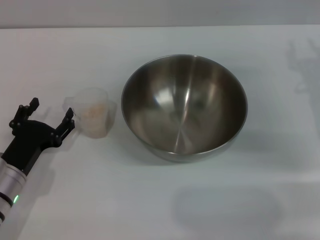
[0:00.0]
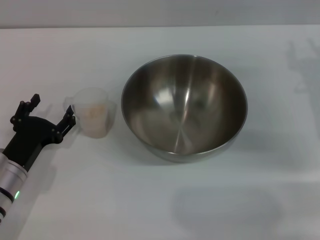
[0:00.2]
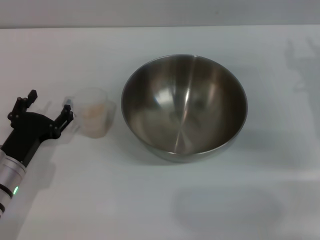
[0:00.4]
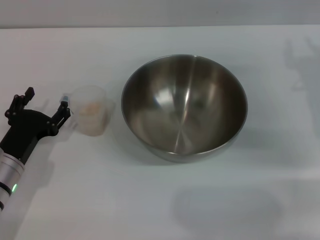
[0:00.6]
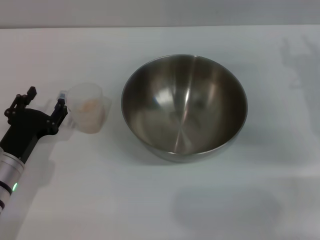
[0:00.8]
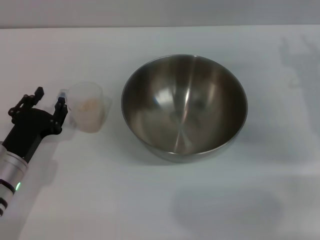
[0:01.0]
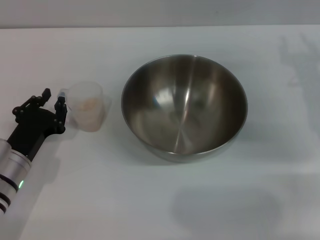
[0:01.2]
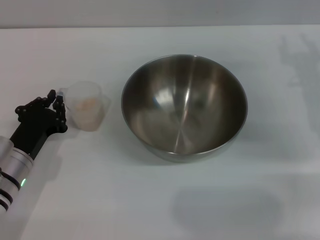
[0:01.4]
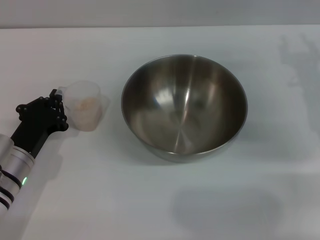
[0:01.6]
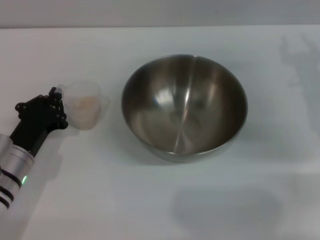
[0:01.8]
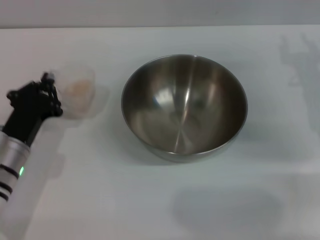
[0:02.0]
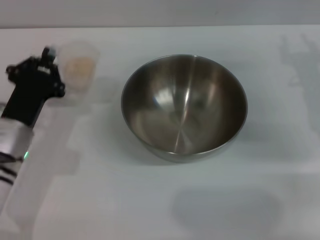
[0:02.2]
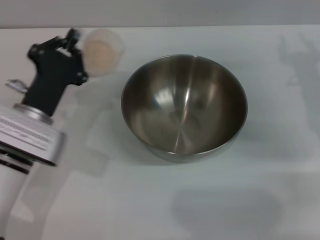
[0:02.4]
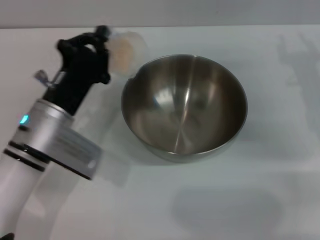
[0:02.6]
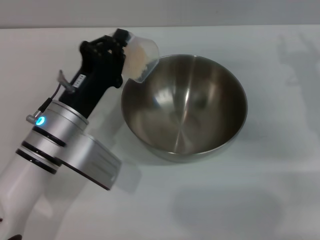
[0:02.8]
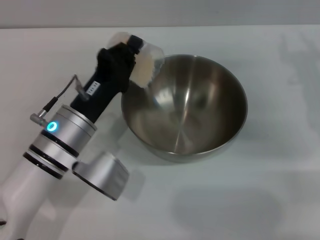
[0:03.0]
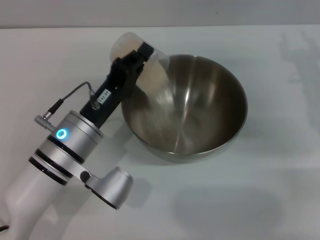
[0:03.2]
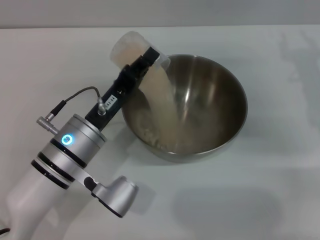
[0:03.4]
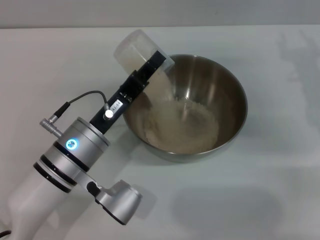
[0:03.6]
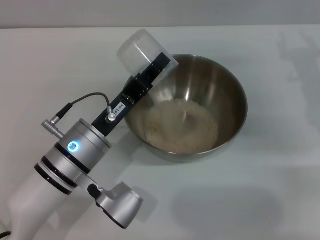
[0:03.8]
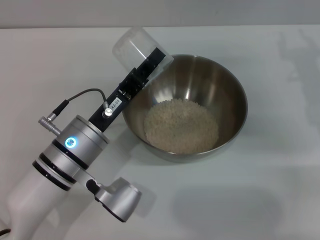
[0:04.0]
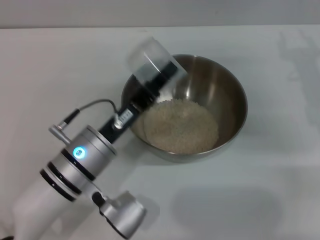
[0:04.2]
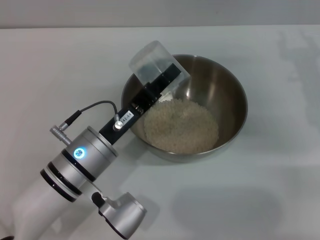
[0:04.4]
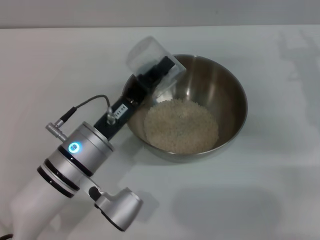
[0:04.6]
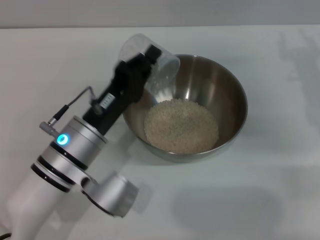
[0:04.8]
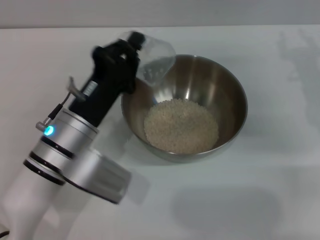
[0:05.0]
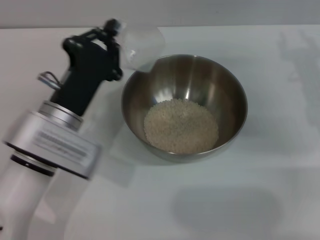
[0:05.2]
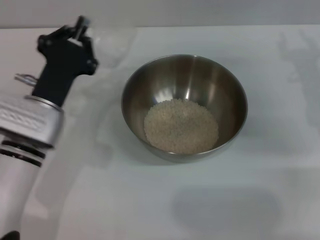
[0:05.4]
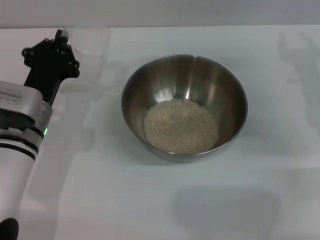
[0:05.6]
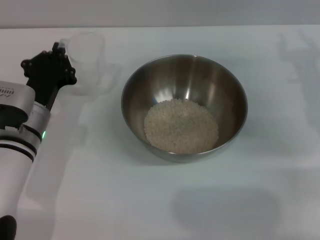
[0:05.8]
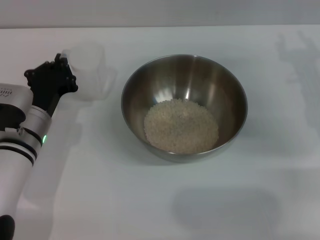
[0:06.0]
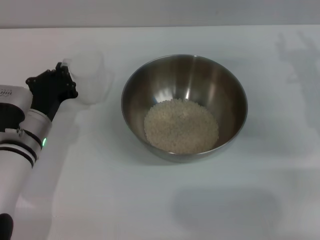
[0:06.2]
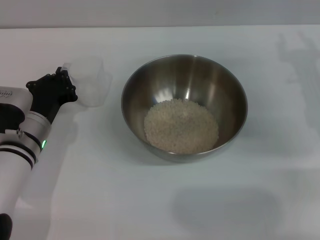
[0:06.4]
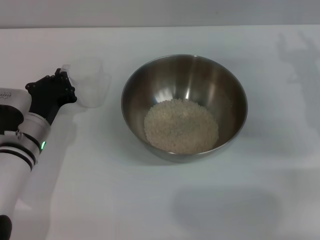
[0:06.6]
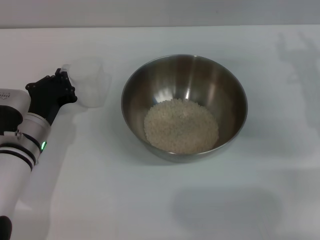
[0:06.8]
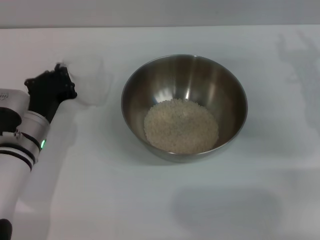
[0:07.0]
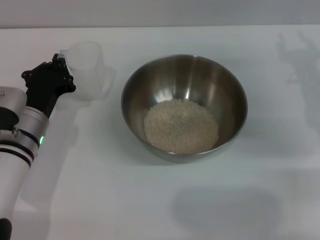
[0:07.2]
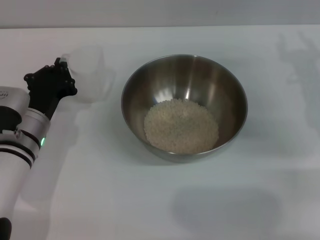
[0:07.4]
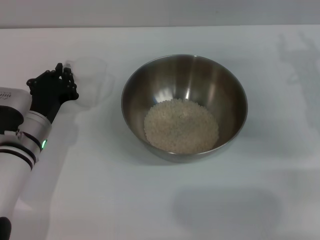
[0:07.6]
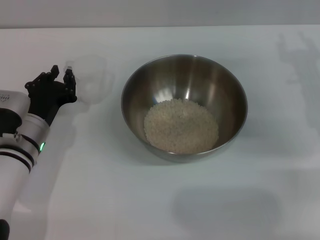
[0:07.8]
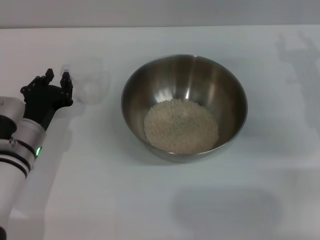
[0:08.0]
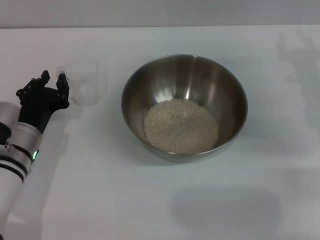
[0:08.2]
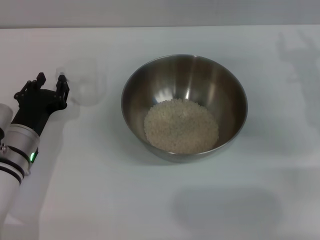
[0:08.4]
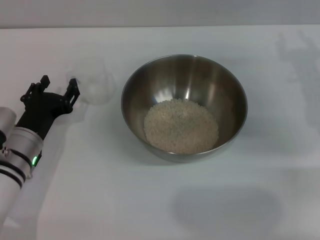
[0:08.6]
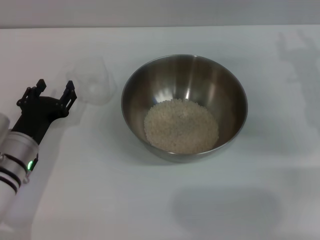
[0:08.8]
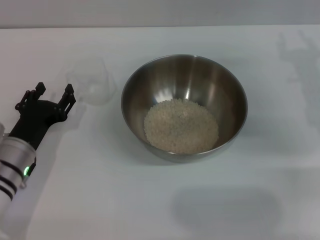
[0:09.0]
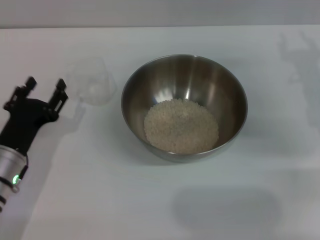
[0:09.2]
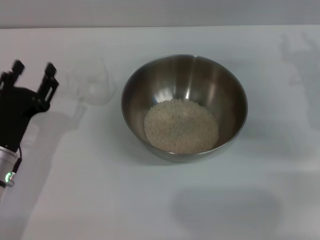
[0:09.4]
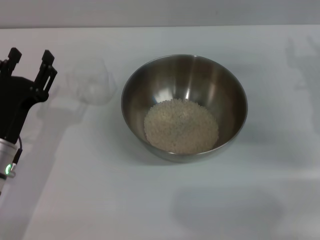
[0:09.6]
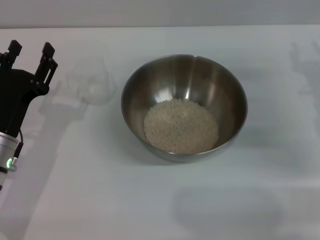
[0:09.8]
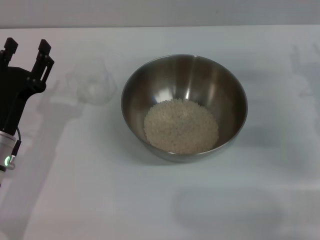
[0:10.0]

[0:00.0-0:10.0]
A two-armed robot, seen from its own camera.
Task of the whole recording: Place the bowl in the middle of the table with one hand and pour the rice from the grain cup into it with the other hand.
Step, 0:00.0 to 0:02.0: Pick up the cup with rice in it with the left gripper.
Step, 0:02.2 to 0:04.6: Pour the rice from the cup into the bowl with the left gripper.
Step, 0:05.0 to 0:09.0: Place the cup on the table with the left gripper.
0:00.0 to 0:01.4: The left gripper closes.
0:01.4 to 0:02.8: The left gripper goes approximately 10 cm to the right and upward.
0:04.2 to 0:05.8: The left gripper travels to the left and forward by approximately 10 cm.
0:05.8 to 0:07.2: There are only small adjustments of the grippers.
0:07.2 to 0:08.6: The left gripper opens its fingers.
